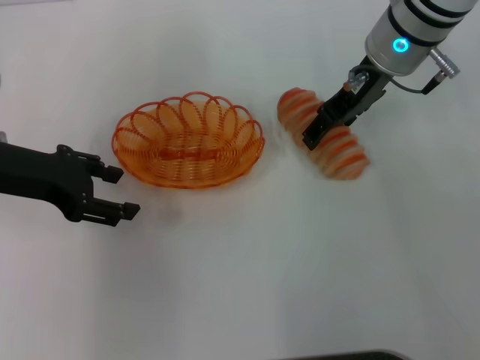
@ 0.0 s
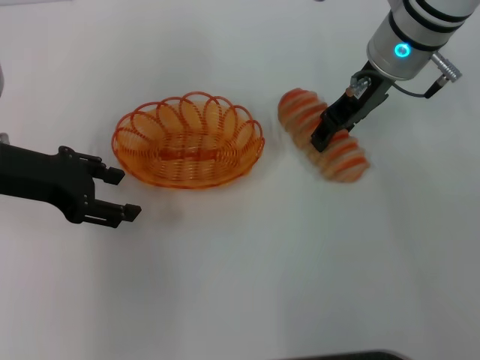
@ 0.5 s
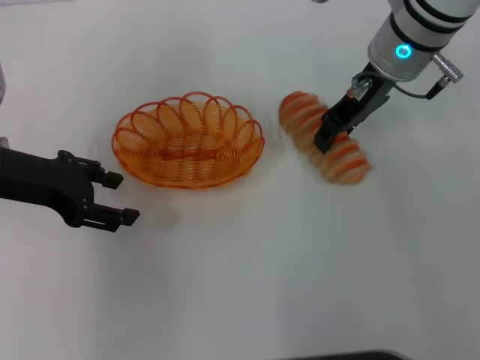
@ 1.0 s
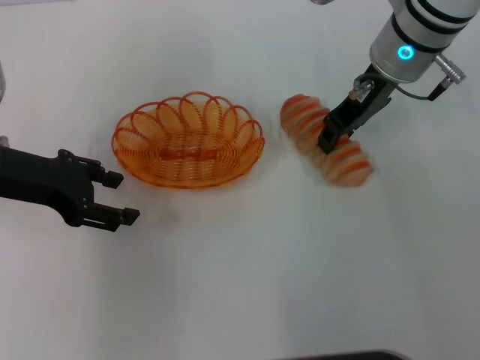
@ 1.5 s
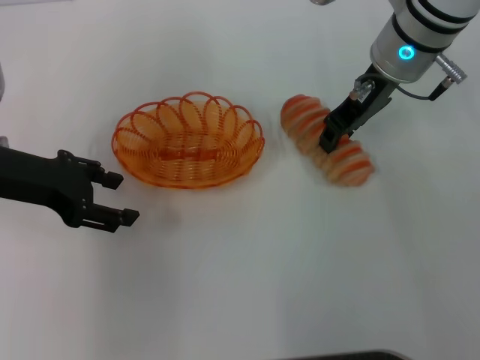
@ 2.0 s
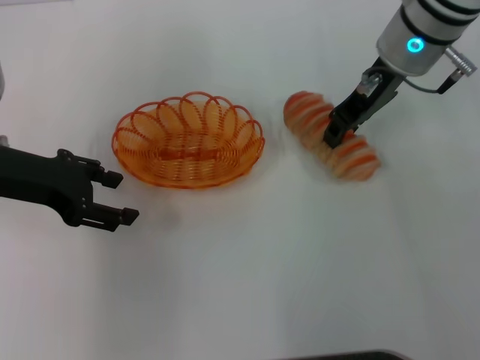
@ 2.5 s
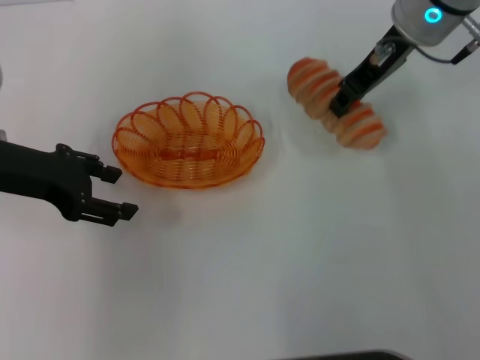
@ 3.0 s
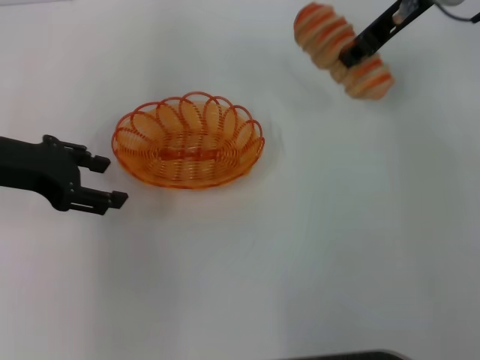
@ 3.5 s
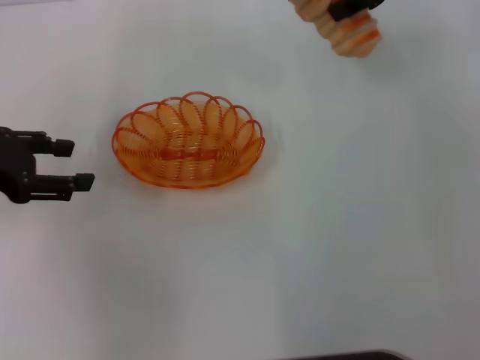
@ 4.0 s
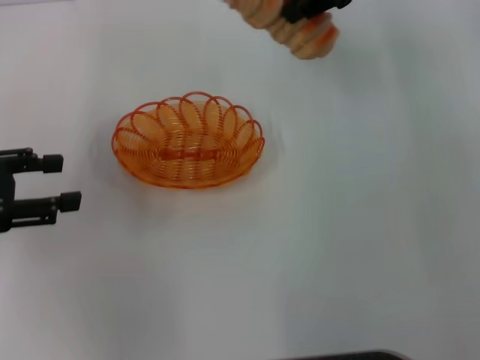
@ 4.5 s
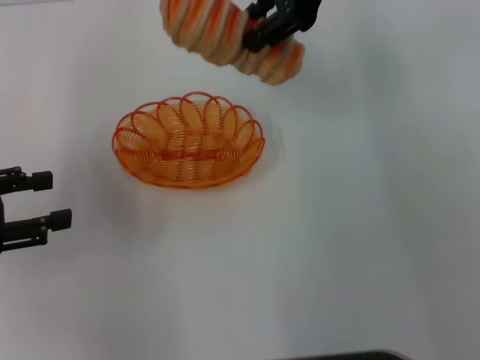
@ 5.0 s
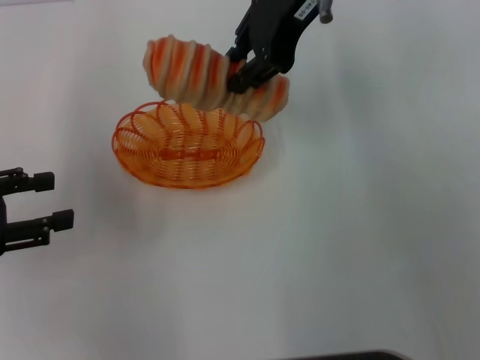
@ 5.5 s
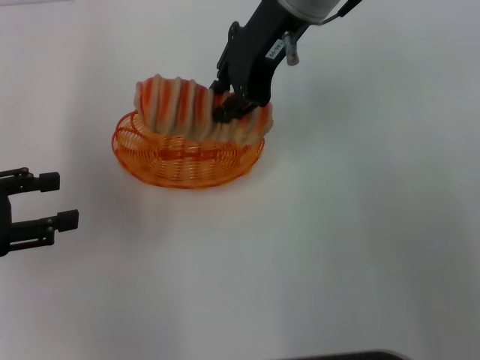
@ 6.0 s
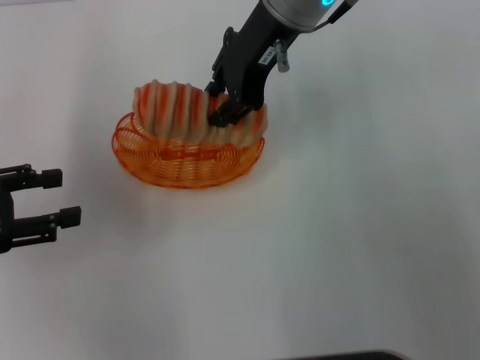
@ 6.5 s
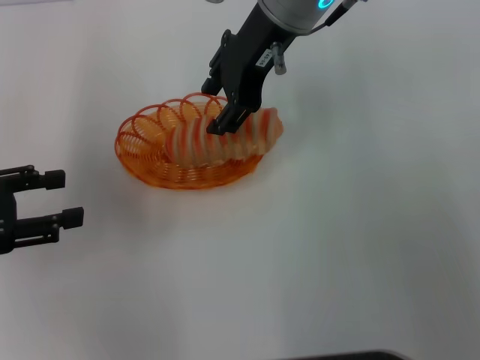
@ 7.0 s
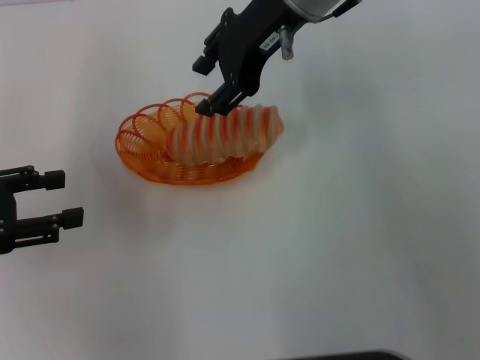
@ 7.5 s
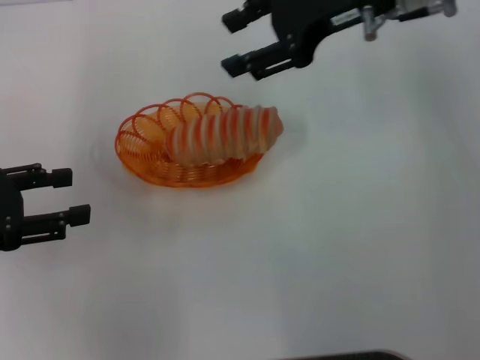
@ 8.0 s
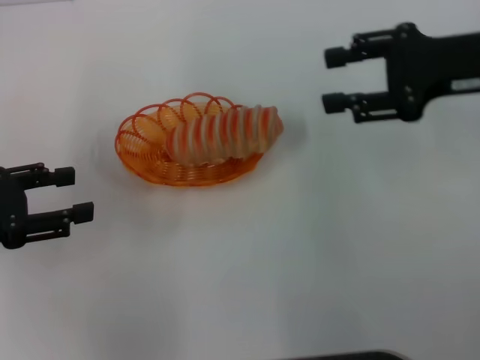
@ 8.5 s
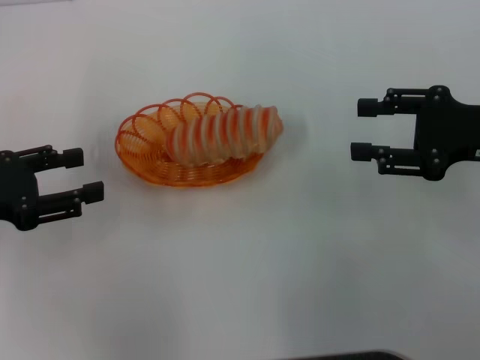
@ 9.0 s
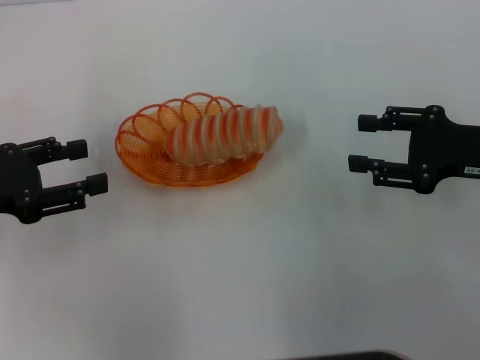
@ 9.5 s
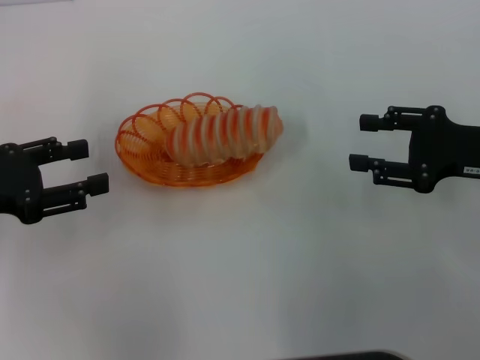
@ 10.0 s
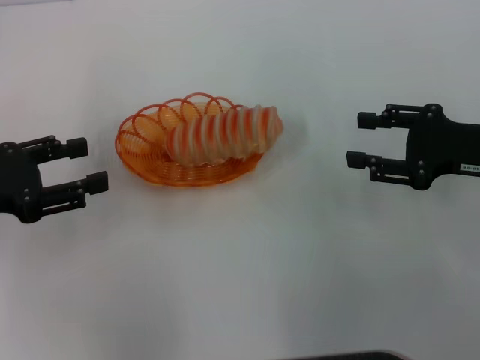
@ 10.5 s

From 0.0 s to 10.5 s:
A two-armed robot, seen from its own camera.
Step, from 0.0 s to 2.5 s: Pick up the long bread with the right gripper.
Step, from 3.0 s to 7.5 s: Place the long bread into the basket with the right gripper.
From 0.0 s to 2.0 s: The right gripper closes its fingers.
From 2.0 s to 4.0 s: The left gripper moves to the left, some 5 cm. Meanwhile the right gripper travels upward and to the right by about 10 cm.
From 4.0 s to 6.5 s: The left gripper is displaced backward by approximately 5 cm. The right gripper shifts some 15 cm to the left.
From 6.5 s to 8.5 s: The right gripper moves to the right, about 20 cm, and opens its fingers.
From 8.5 s to 10.5 s: The right gripper goes approximately 10 cm downward and backward.

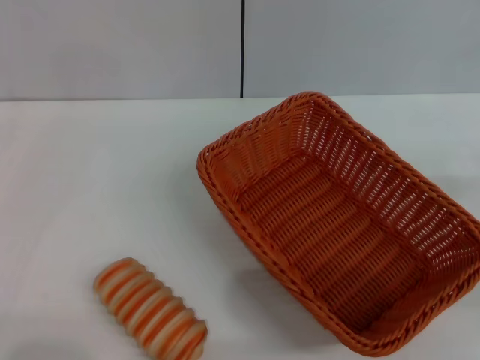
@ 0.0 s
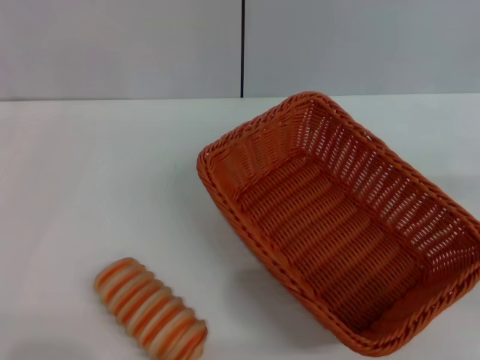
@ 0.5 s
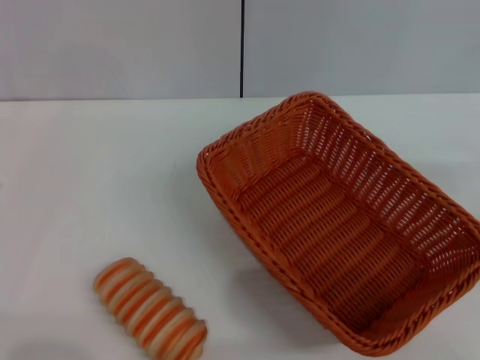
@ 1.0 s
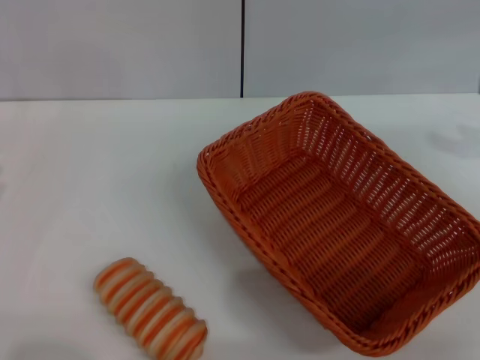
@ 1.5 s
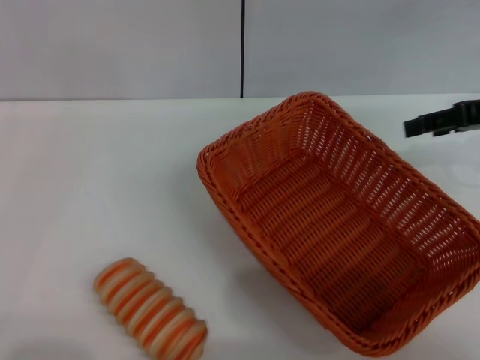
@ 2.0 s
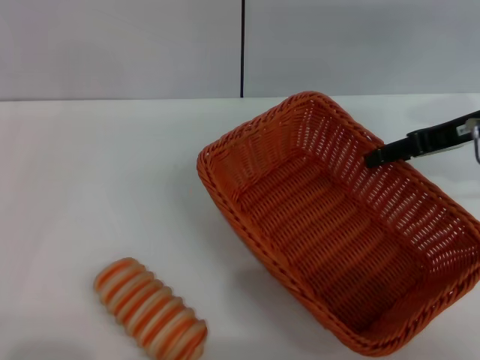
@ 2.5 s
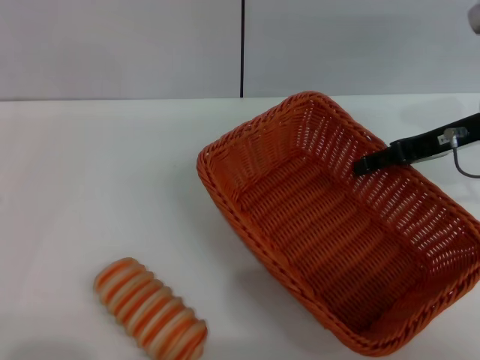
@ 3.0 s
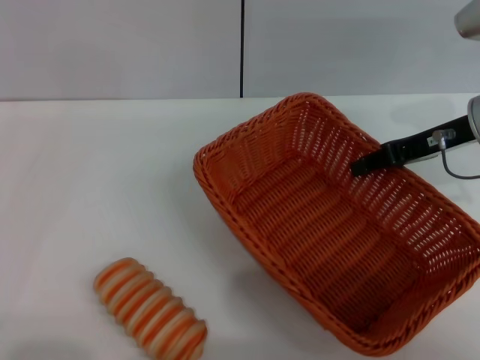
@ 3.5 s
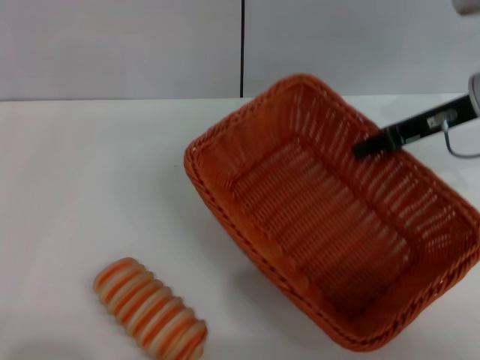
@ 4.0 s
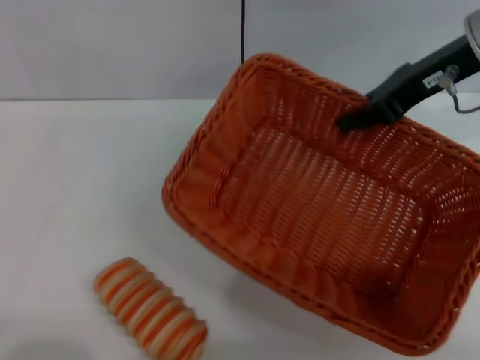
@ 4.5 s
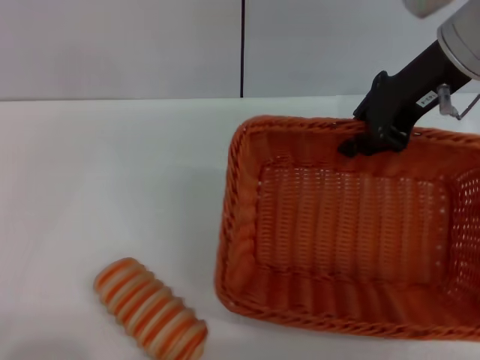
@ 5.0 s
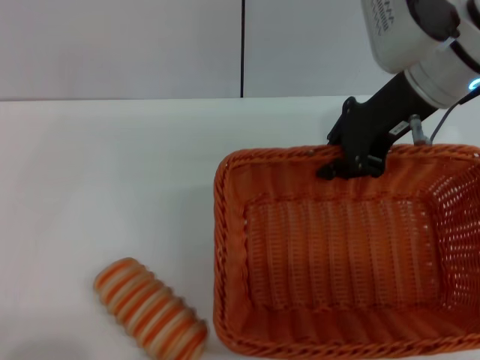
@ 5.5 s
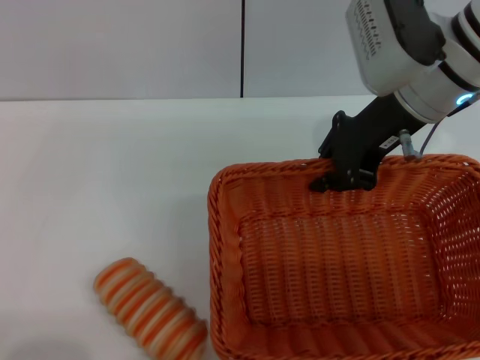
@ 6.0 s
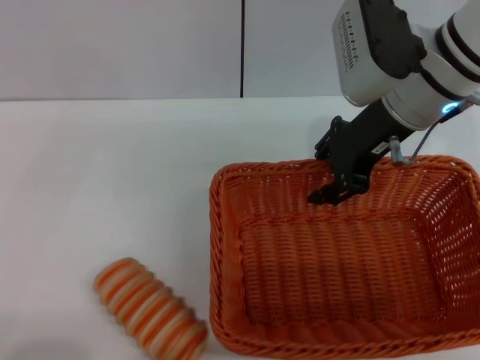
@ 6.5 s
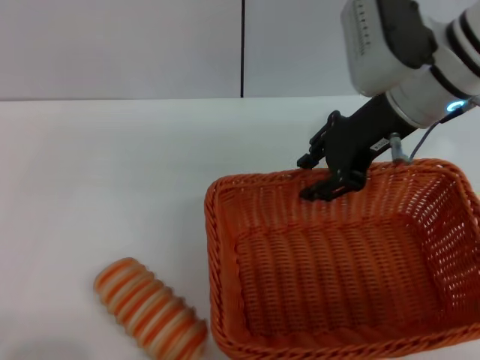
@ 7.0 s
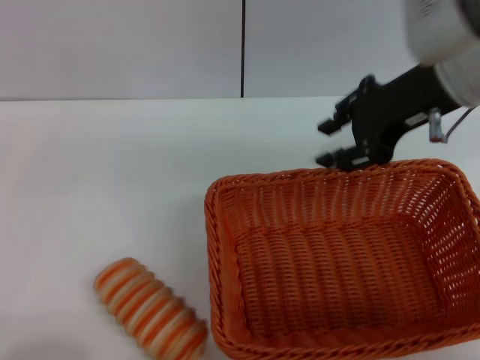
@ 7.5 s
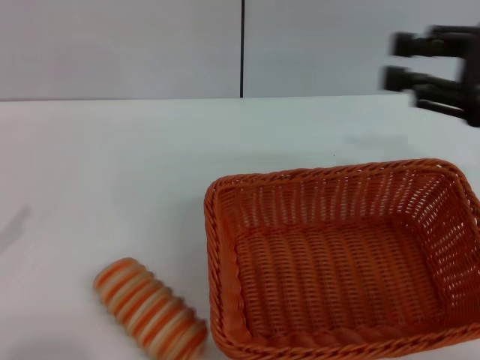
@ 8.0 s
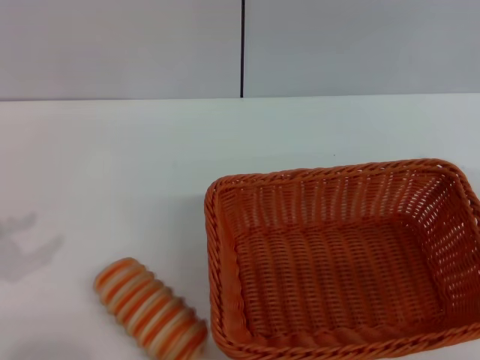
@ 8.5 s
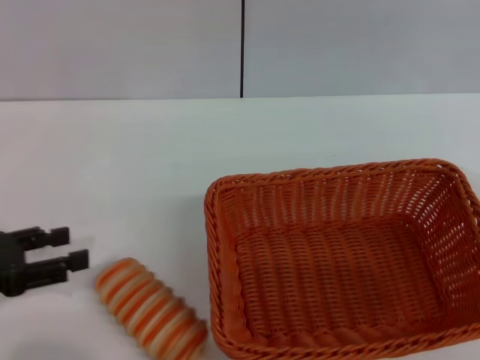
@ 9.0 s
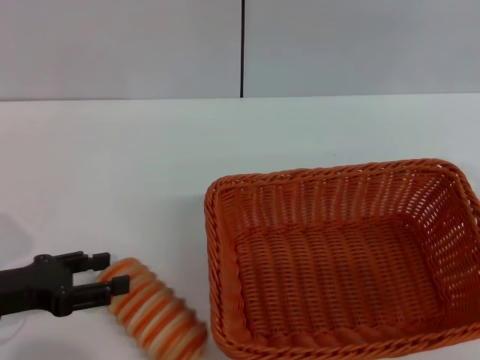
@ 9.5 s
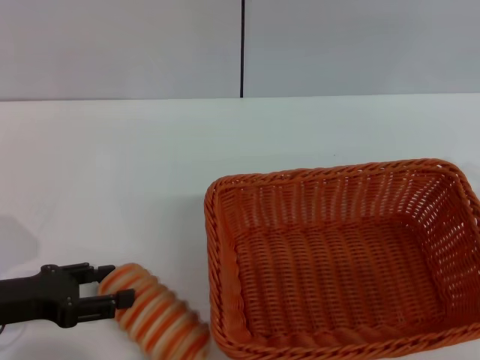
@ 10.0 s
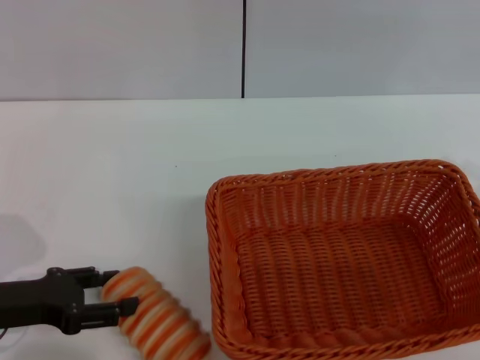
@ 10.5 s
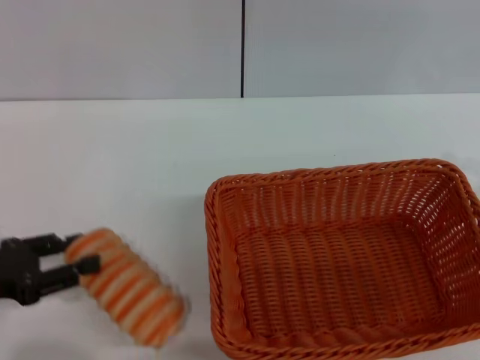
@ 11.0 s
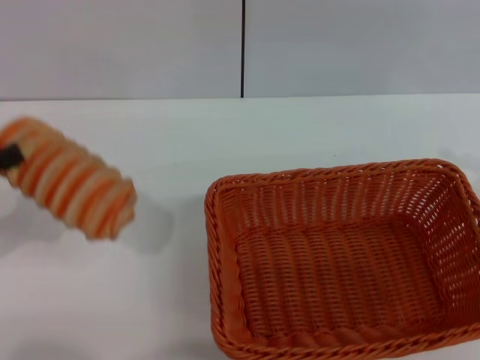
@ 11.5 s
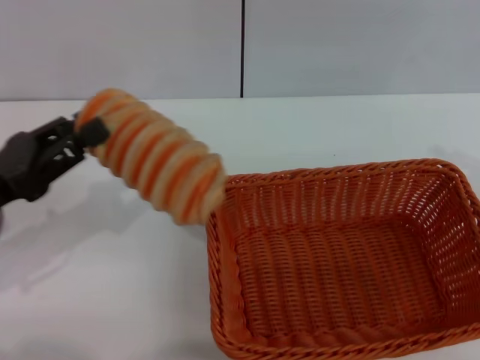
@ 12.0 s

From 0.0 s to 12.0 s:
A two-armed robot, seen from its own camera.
Step, from 0.0 s to 5.5 s: Pick up the light basket with the right gripper.
Step, from 6.0 s to 7.5 s: Place the light basket in the center of view with the right gripper.
Step, from 8.0 s to 11.5 s: Pick up the long bread with the left gripper.
From 0.0 s to 2.0 s: The right gripper is displaced forward, upward and to the left by about 20 cm.
From 2.0 s to 4.0 s: The right gripper travels to the left by roughly 5 cm, and closes.
From 4.0 s to 6.0 s: The left gripper goes about 5 cm backward; the right gripper shifts some 10 cm to the left.
From 6.0 s to 8.0 s: The right gripper is displaced to the right and backward by roughly 15 cm, and opens. Meanwhile the left gripper is displaced upward by some 5 cm.
From 8.0 s to 10.0 s: The right gripper is displaced backward, to the right and downward by approximately 15 cm; the left gripper is displaced to the right, forward and downward by some 15 cm.
From 10.0 s to 12.0 s: The left gripper travels upward by roughly 5 cm, and closes.

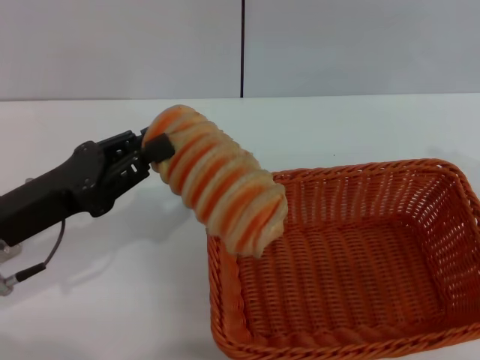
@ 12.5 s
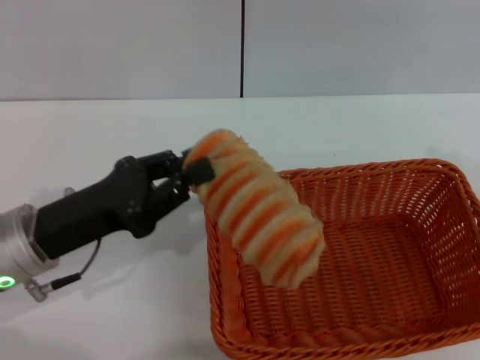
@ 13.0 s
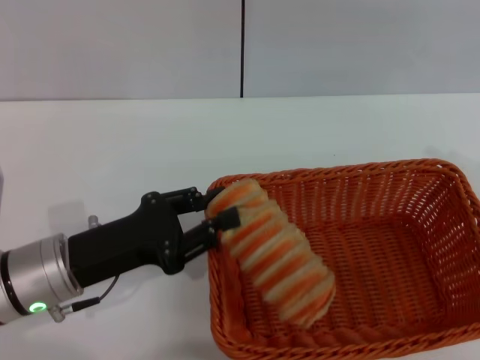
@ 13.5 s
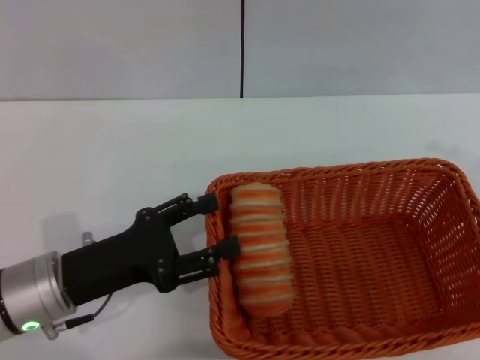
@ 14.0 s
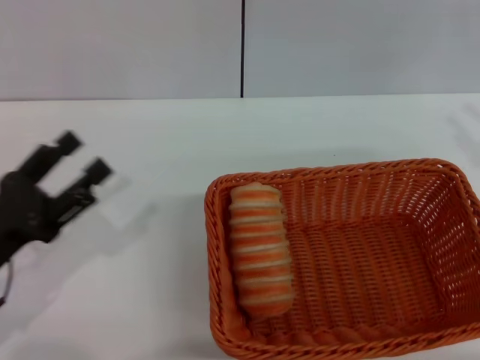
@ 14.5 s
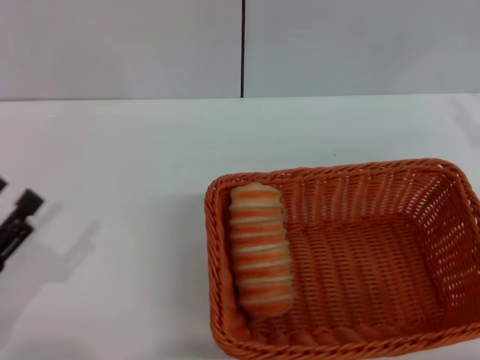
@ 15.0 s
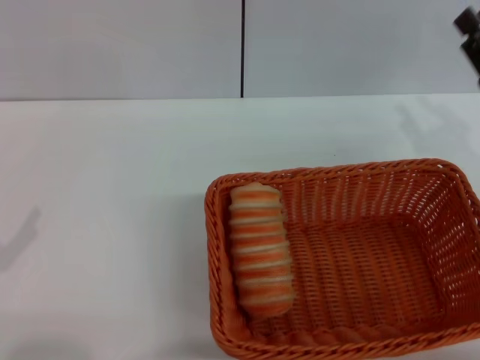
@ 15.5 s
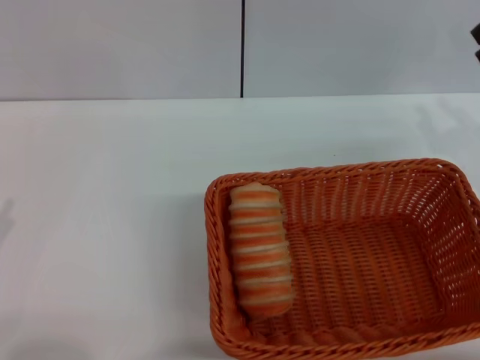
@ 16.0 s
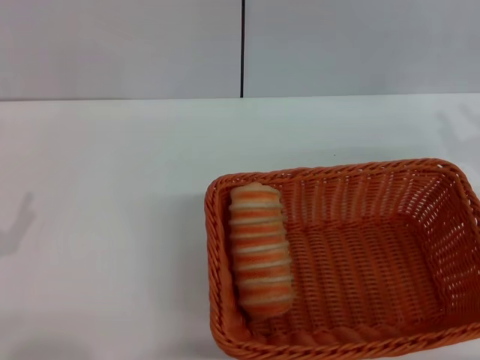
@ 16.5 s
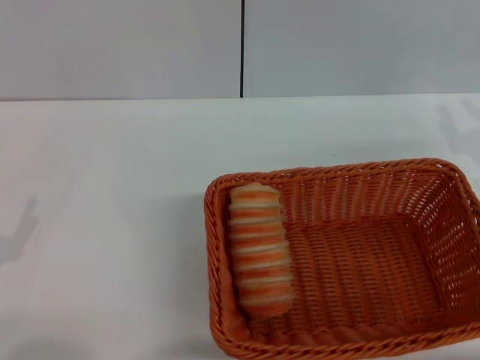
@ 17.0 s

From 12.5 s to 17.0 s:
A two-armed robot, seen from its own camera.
Step, from 12.5 s to 14.5 s: Place the long bread into the light basket with the left gripper.
From 12.5 s to 14.5 s: The left gripper travels backward by roughly 5 cm, and opens.
From 14.5 s to 17.0 s: The left gripper ends up about 5 cm from where it was.
